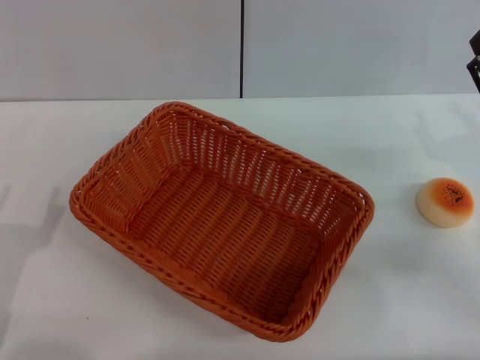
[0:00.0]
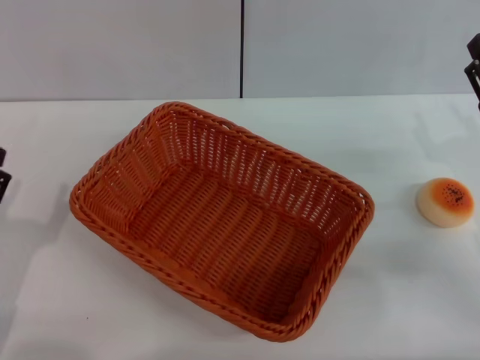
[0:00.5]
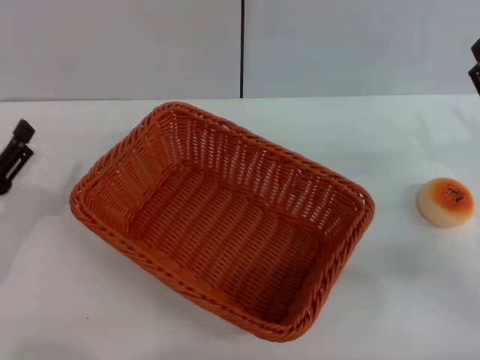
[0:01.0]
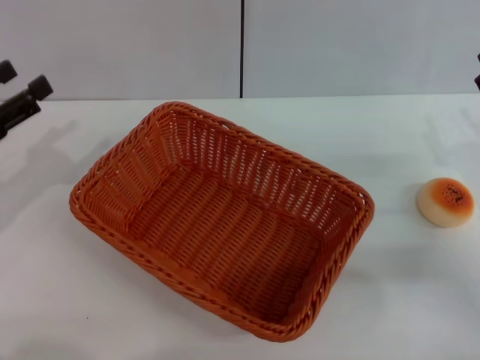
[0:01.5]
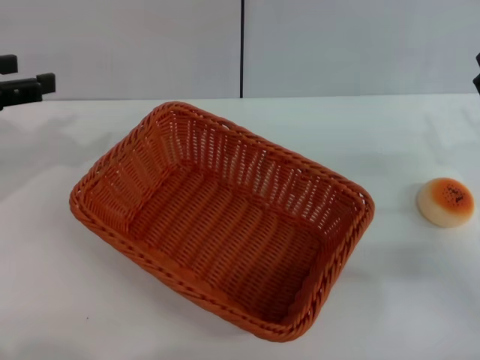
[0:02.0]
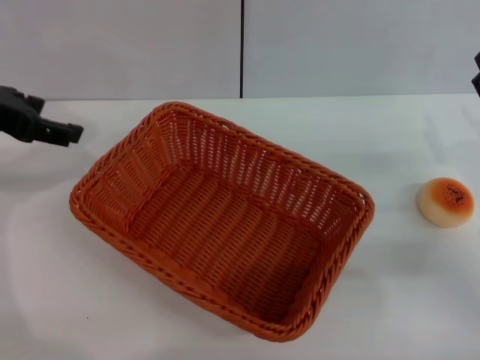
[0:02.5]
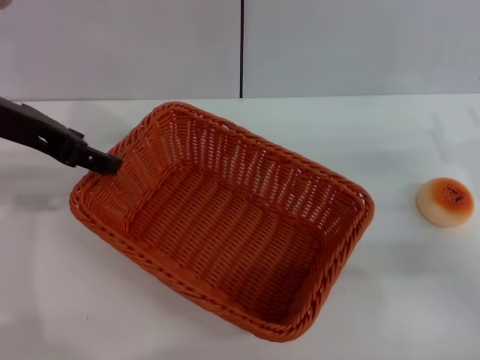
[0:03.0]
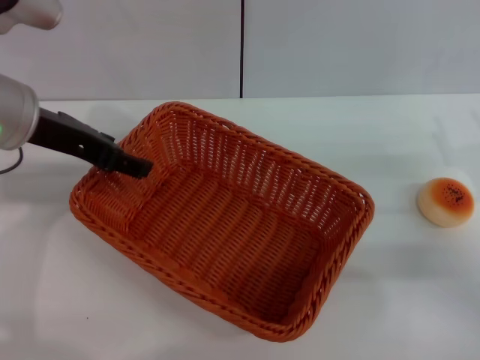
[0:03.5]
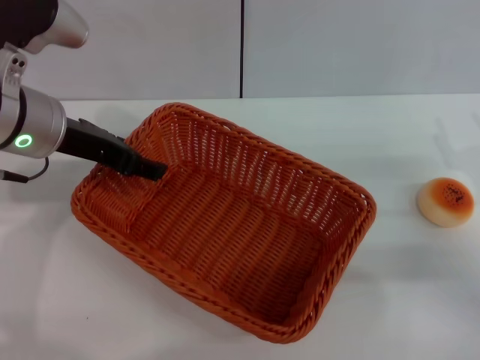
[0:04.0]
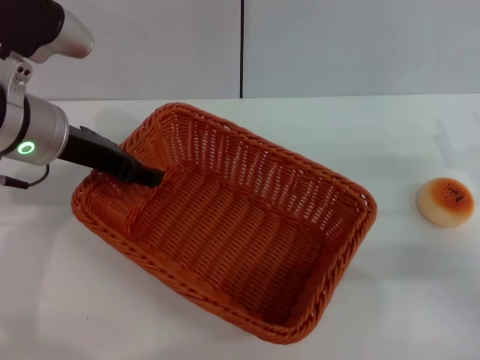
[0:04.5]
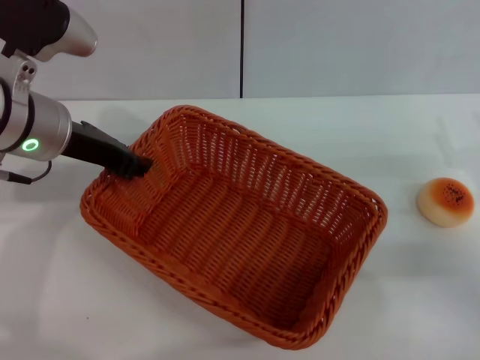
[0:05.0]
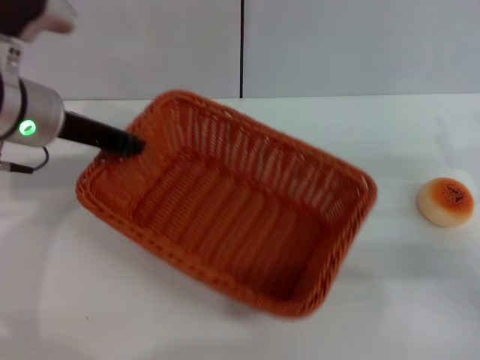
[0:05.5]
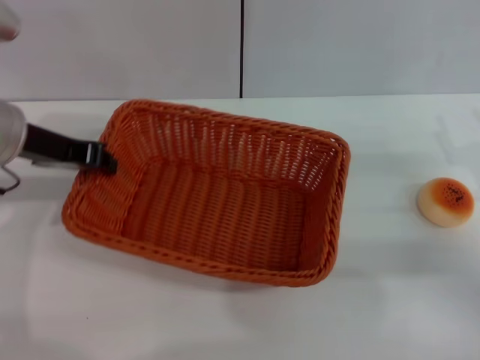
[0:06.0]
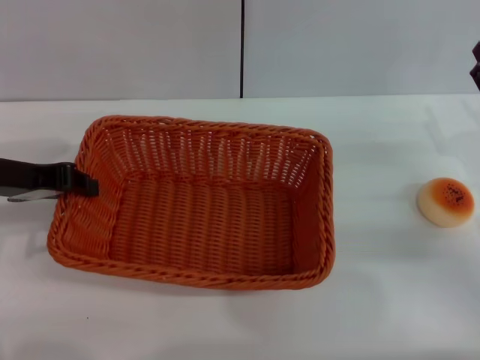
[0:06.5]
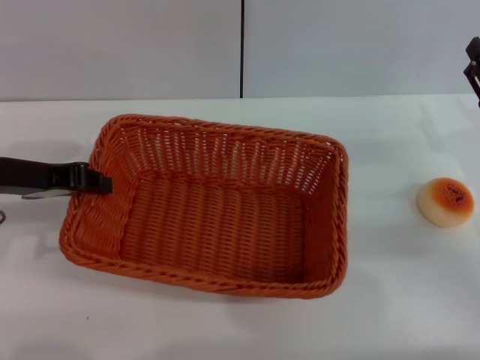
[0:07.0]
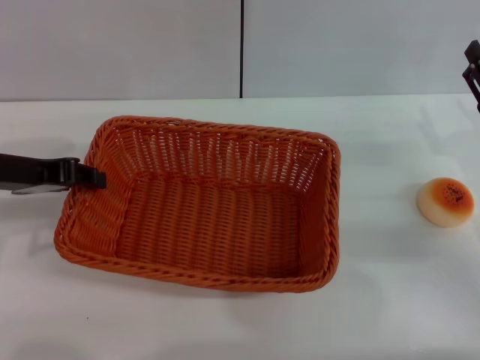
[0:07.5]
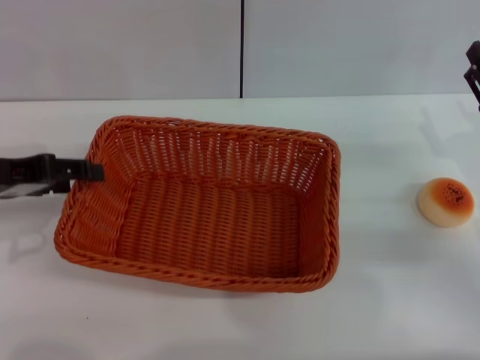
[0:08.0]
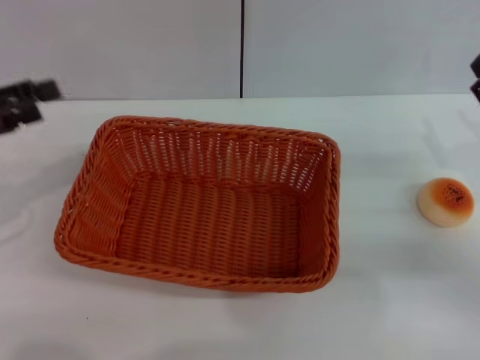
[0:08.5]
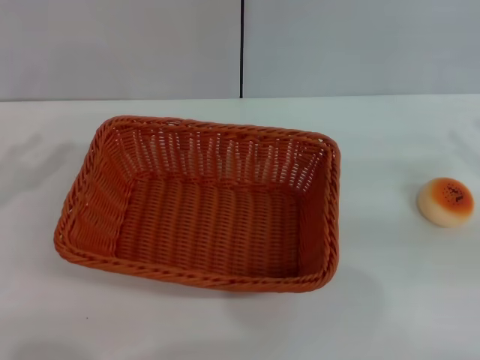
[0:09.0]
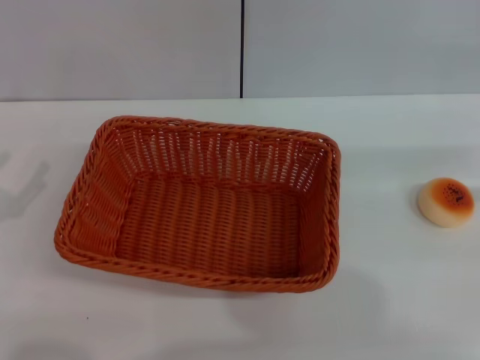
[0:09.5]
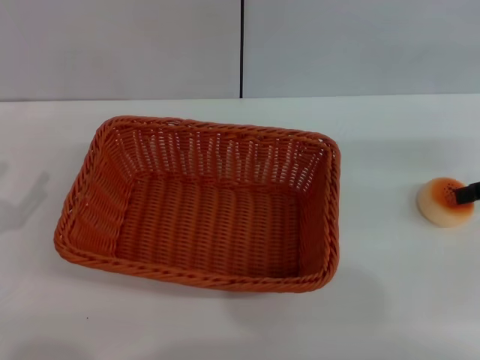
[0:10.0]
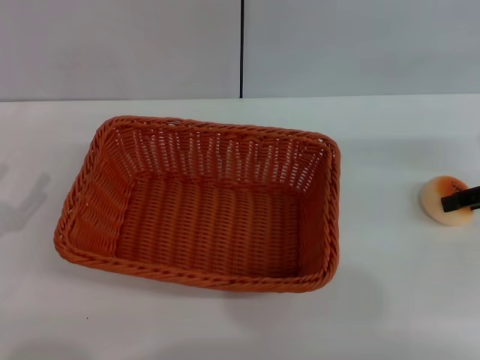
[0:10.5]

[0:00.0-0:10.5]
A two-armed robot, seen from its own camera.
Step, 0:00.0 to 0:08.0: Move the basket to the center of view with the left gripper.
0:00.0 to 0:02.0: The left gripper is displaced upward and forward by approximately 25 cm.
0:02.0 to 0:04.0: The left gripper shifts some 15 cm to the right.
0:04.0 to 0:06.5: The left gripper goes about 5 cm to the left, and closes its fingers.
0:06.5 to 0:08.5: The left gripper is displaced to the left by roughly 5 cm, and opens up.
0:08.5 to 0:10.5: The right gripper travels forward and upward by some 10 cm; the left gripper goes about 15 cm downward and backward.

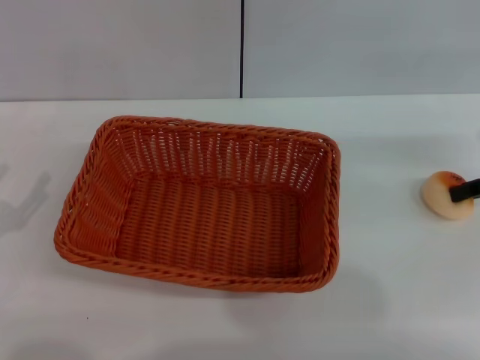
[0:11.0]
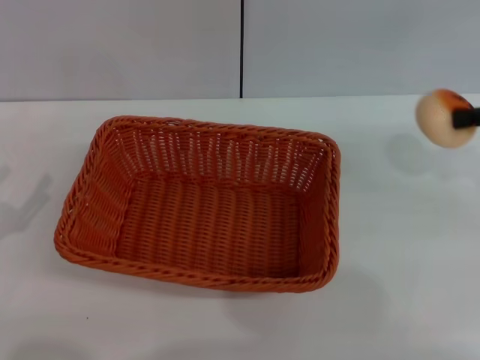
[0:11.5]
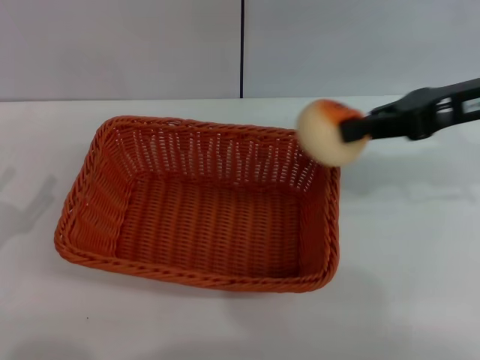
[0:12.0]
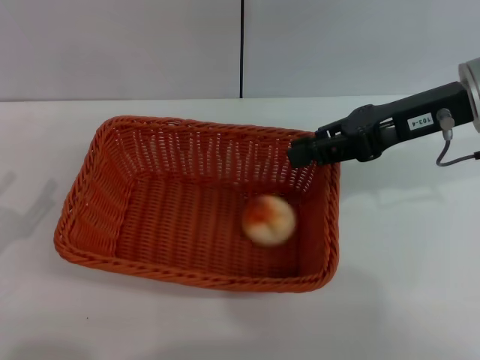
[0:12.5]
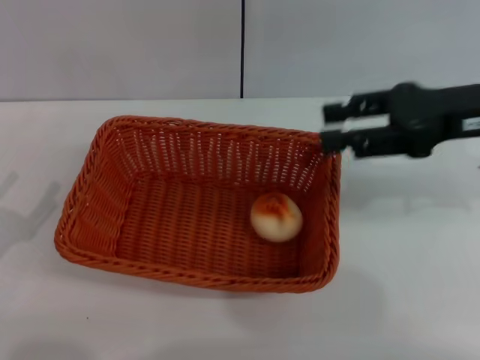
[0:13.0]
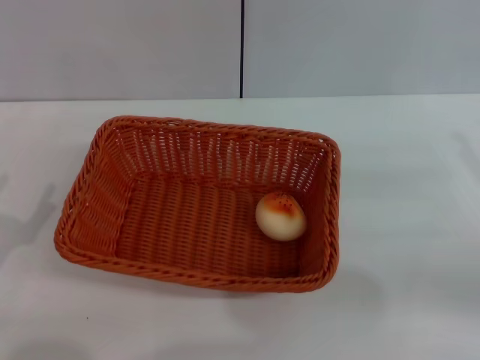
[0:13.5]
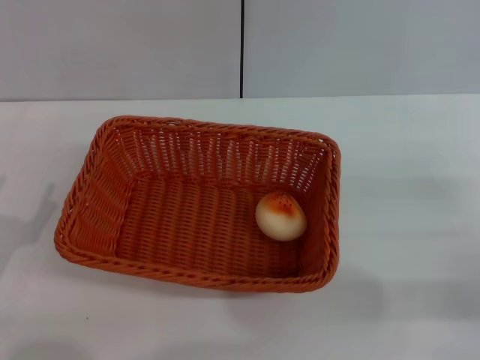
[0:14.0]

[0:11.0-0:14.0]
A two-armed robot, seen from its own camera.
Step, 0:11.5 to 0:12.5: Place the egg yolk pastry into the basket with the right gripper.
0:11.0 to 0:12.5: The right gripper goes approximately 15 cm to the left and upward.
0:12.5 to 0:14.0: The right gripper moves downward, to the right and backward, roughly 25 cm, and opens up.

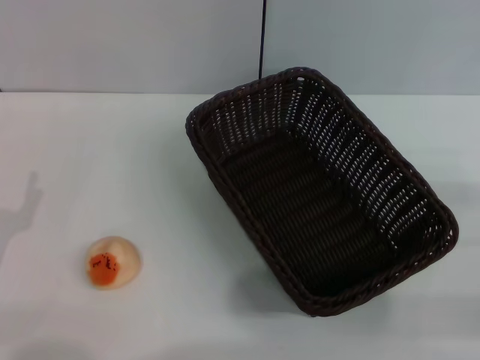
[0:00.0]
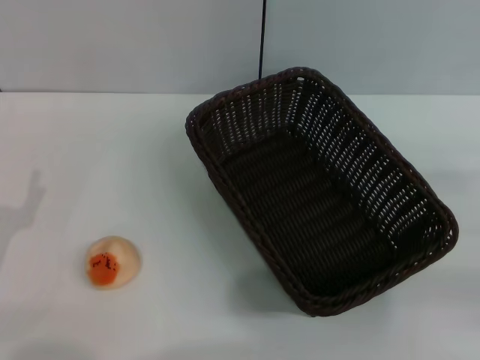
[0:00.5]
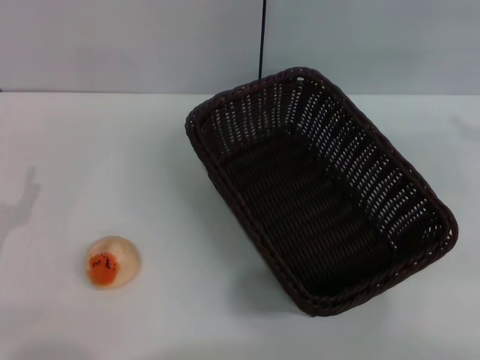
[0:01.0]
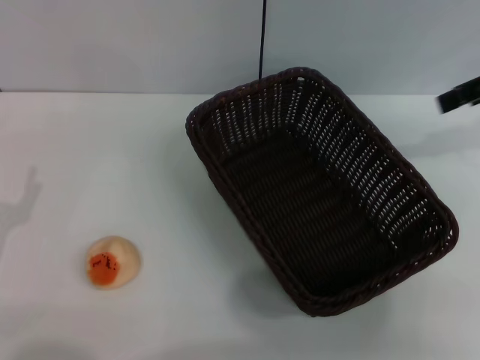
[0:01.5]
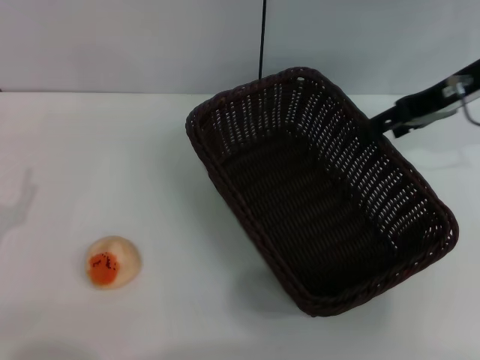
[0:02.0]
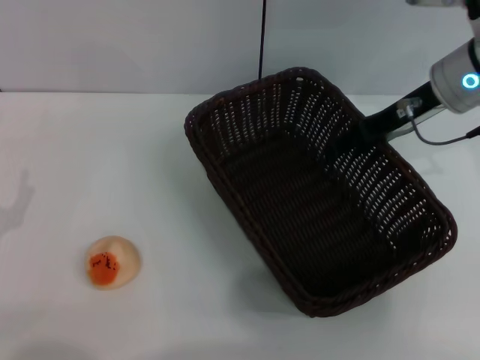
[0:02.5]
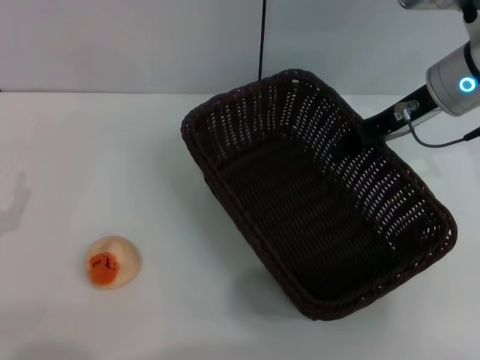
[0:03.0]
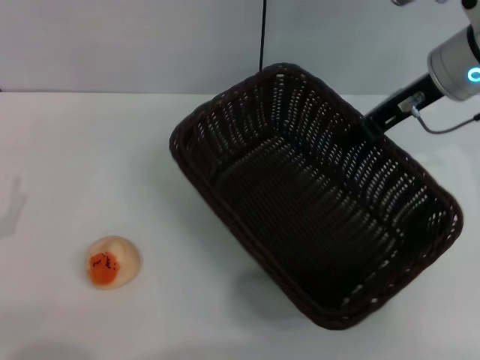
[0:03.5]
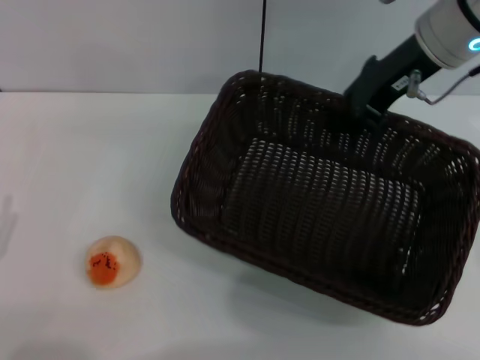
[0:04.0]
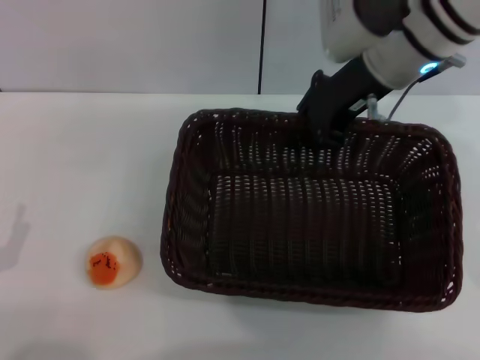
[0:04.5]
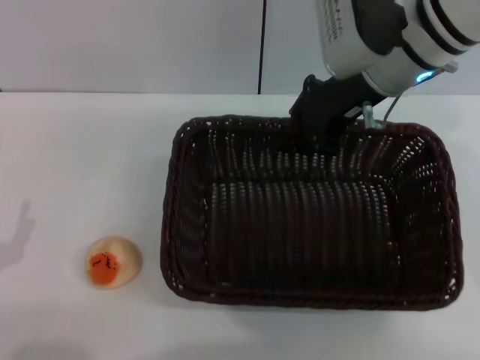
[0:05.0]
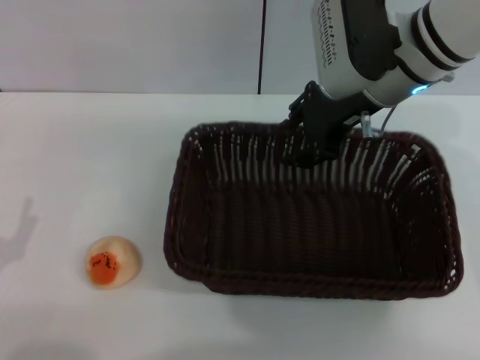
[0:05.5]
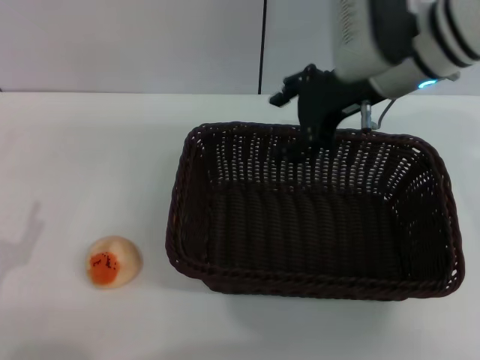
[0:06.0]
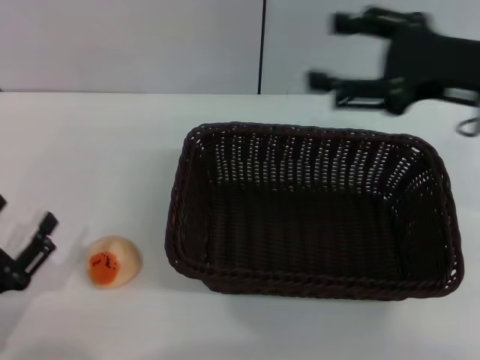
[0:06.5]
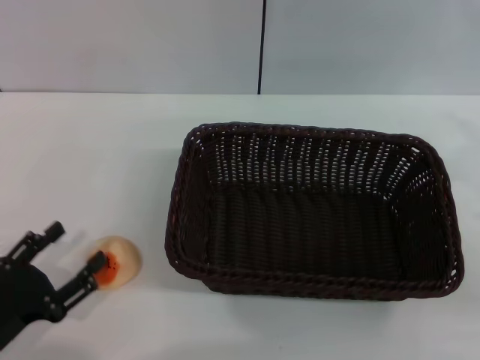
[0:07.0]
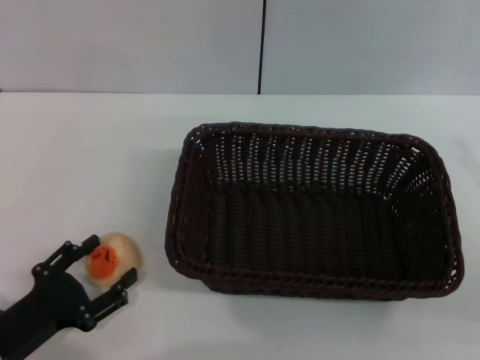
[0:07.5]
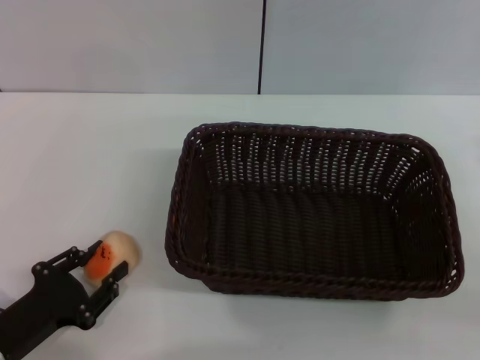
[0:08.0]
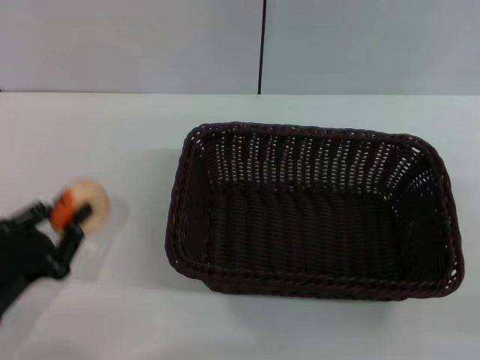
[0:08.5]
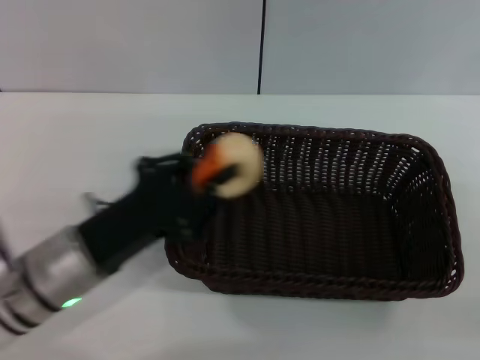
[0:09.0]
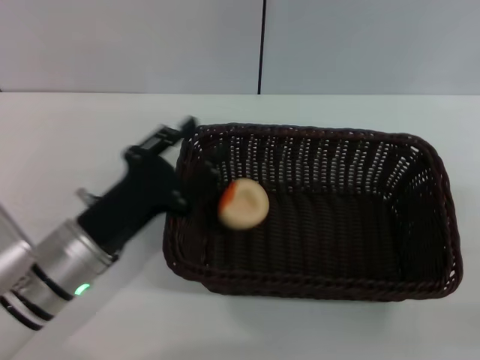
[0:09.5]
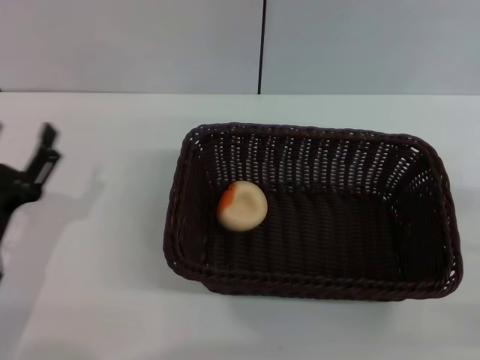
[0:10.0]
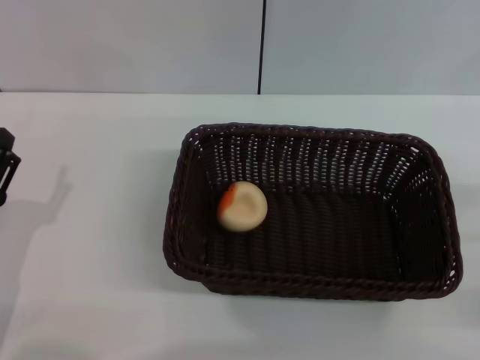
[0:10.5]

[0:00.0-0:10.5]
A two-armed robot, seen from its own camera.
Step, 0:00.0 to 0:06.0: Move the basket to the center of view with the right gripper.
Step, 0:06.5 to 0:08.5: Pick up the egg yolk pastry with the left gripper.
0:00.0 to 0:02.0: The right gripper travels forward, to the left and upward by roughly 25 cm.
0:02.0 to 0:04.0: The right gripper travels to the left by approximately 5 cm, and closes up.
0:04.0 to 0:06.5: The right gripper goes roughly 15 cm backward and to the right, and opens.
0:06.5 to 0:08.5: The right gripper travels to the right, downward and backward by some 20 cm. The left gripper closes up.
0:08.5 to 0:10.5: The left gripper reaches roughly 10 cm to the right, then returns, and opens its fingers.

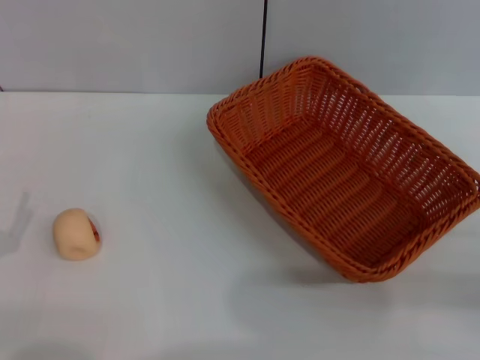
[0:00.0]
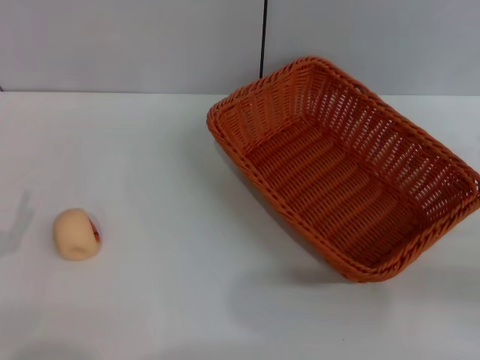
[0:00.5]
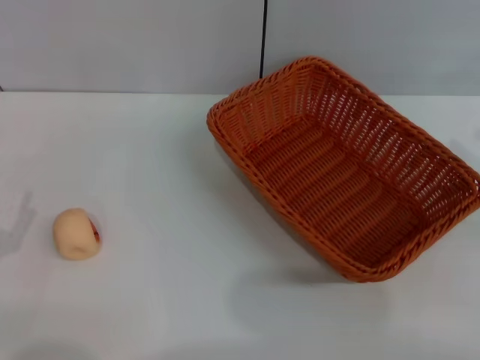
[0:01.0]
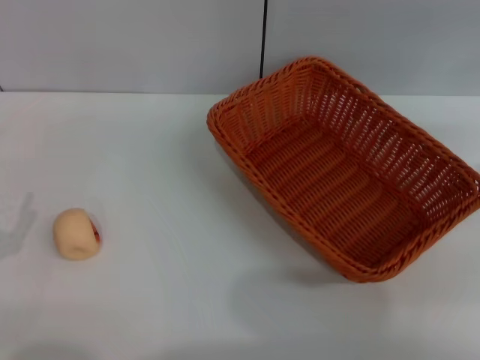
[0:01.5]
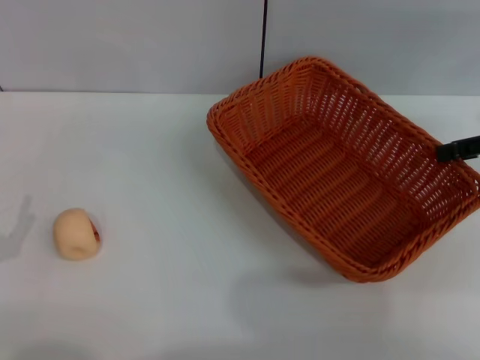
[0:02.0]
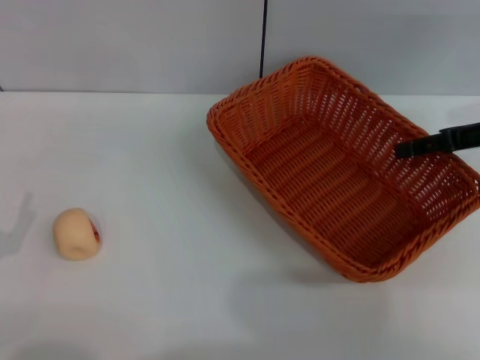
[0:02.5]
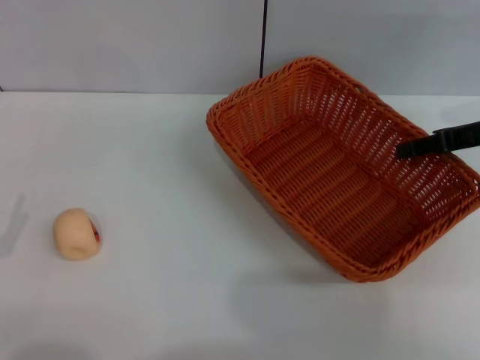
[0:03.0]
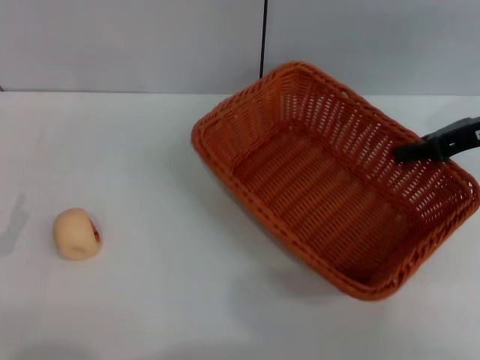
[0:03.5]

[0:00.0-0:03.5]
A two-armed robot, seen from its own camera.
0:00.0 to 0:02.0: The right gripper goes roughly 15 cm forward and upward.
0:02.0 to 0:03.5: The right gripper shifts roughly 5 cm to the left, and closes.
